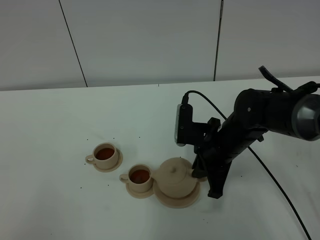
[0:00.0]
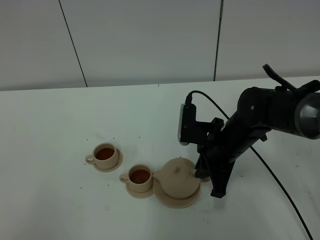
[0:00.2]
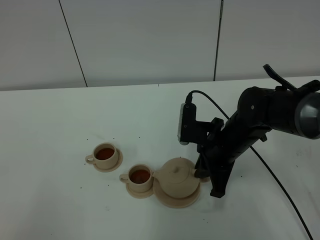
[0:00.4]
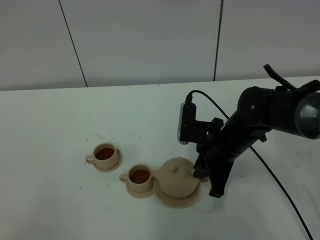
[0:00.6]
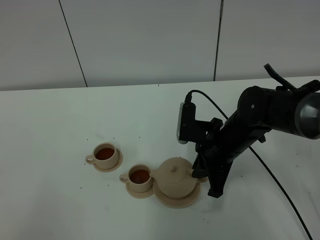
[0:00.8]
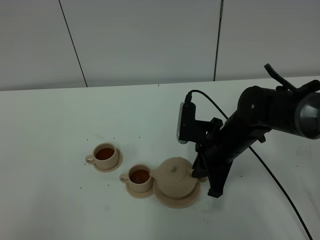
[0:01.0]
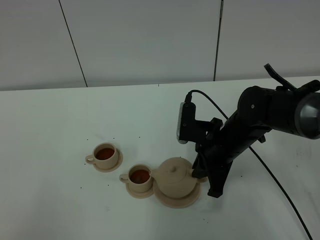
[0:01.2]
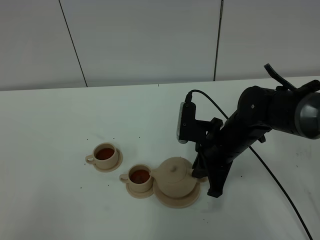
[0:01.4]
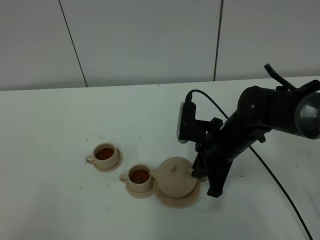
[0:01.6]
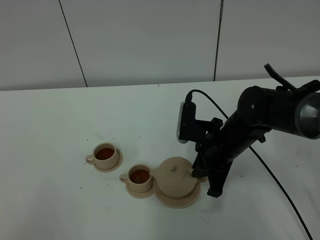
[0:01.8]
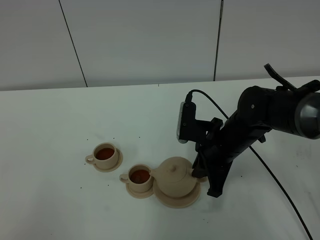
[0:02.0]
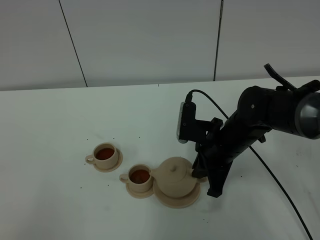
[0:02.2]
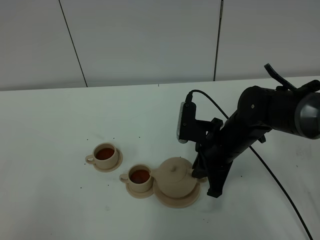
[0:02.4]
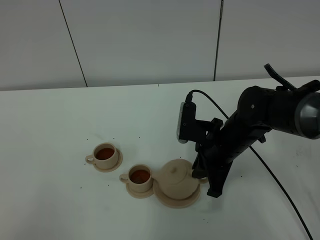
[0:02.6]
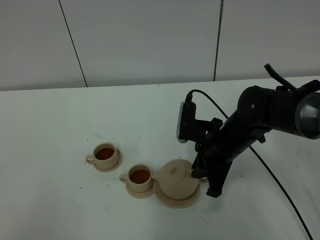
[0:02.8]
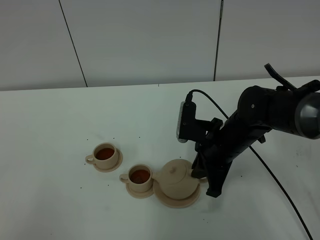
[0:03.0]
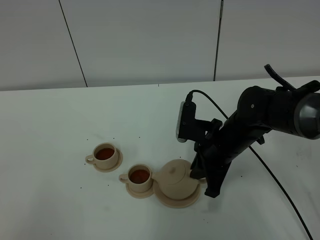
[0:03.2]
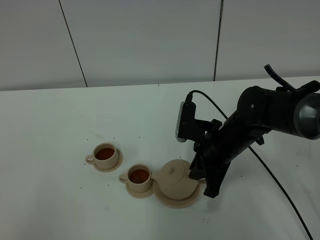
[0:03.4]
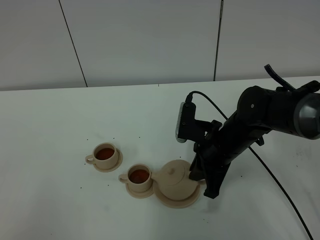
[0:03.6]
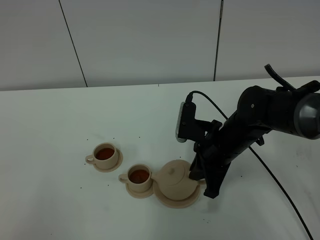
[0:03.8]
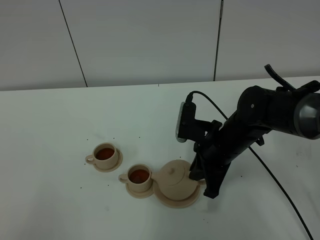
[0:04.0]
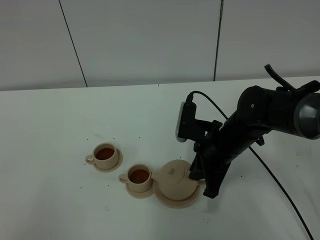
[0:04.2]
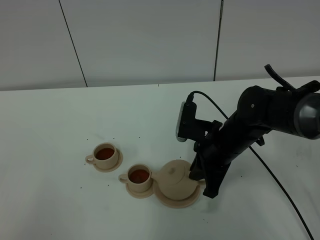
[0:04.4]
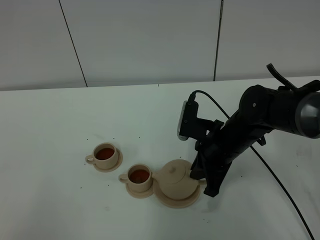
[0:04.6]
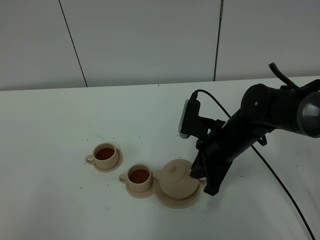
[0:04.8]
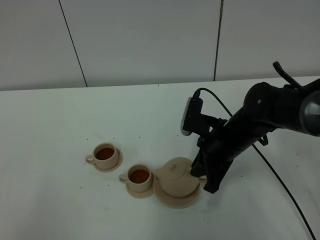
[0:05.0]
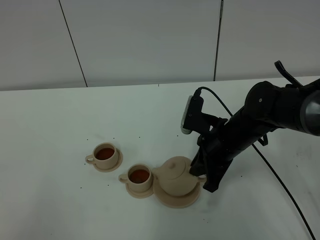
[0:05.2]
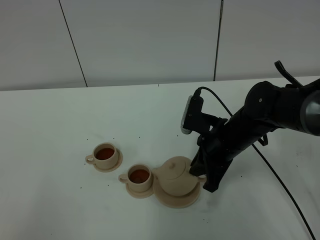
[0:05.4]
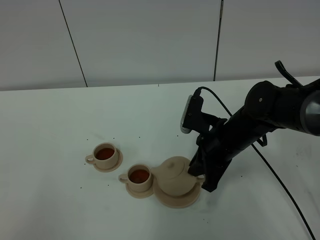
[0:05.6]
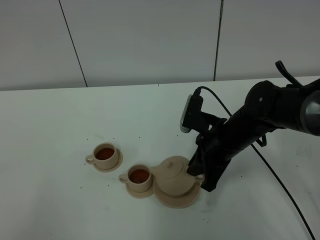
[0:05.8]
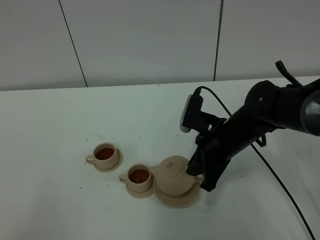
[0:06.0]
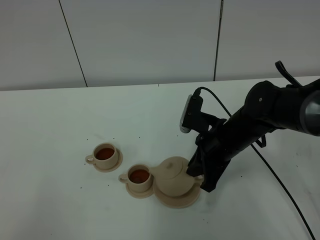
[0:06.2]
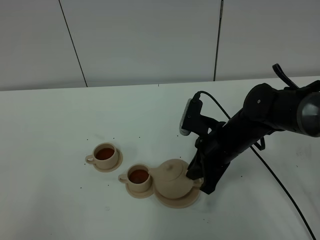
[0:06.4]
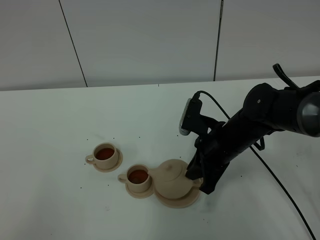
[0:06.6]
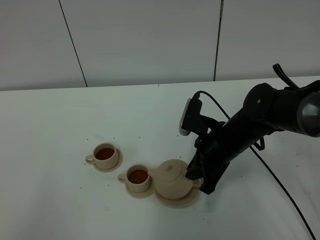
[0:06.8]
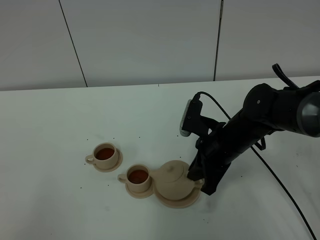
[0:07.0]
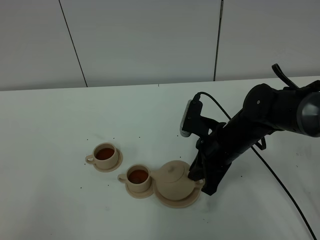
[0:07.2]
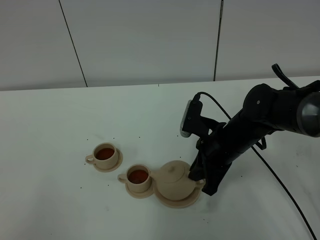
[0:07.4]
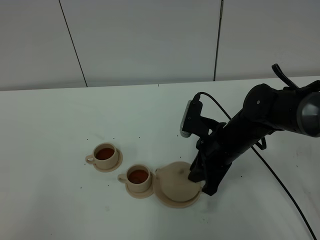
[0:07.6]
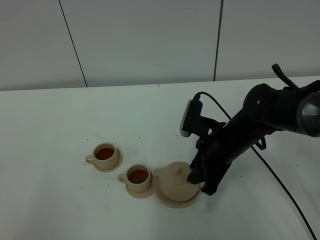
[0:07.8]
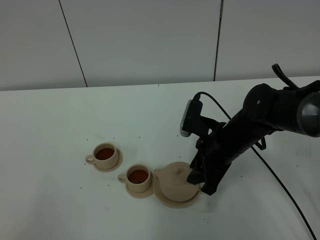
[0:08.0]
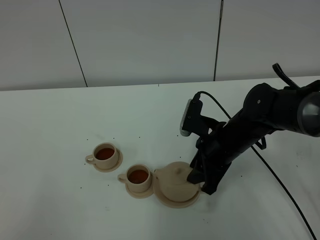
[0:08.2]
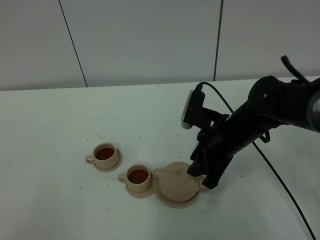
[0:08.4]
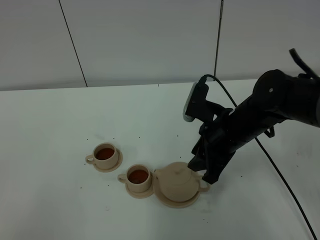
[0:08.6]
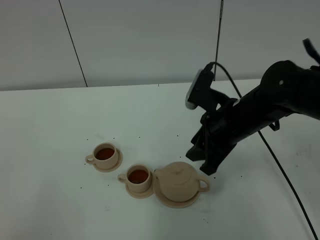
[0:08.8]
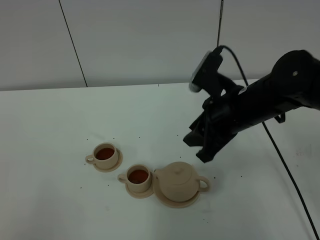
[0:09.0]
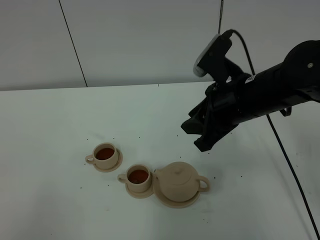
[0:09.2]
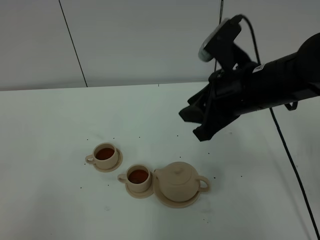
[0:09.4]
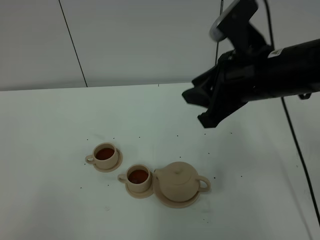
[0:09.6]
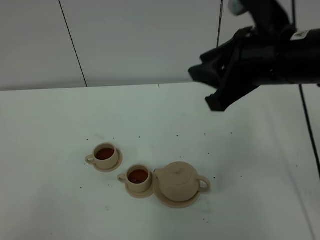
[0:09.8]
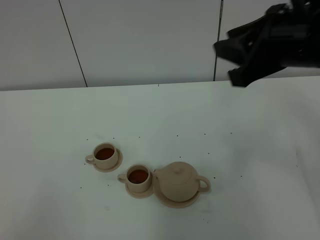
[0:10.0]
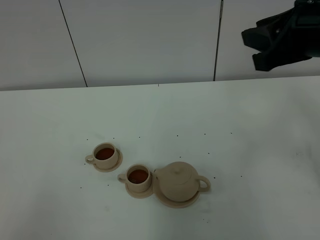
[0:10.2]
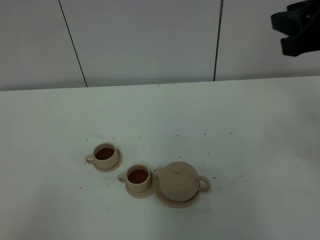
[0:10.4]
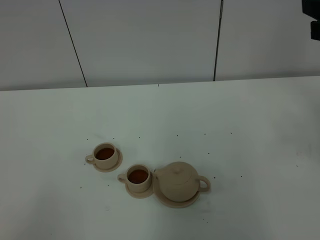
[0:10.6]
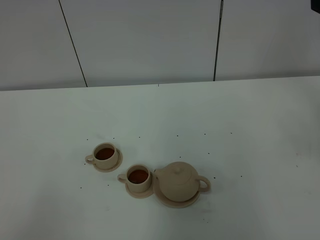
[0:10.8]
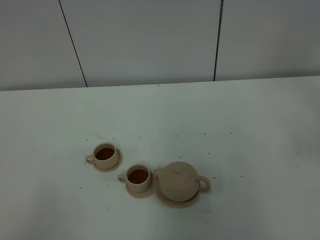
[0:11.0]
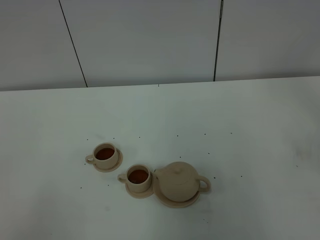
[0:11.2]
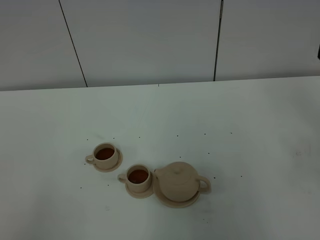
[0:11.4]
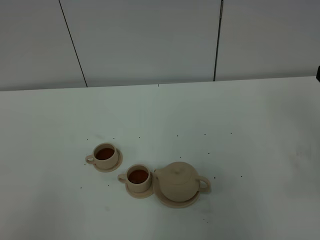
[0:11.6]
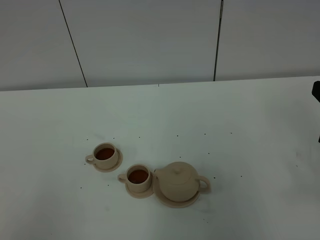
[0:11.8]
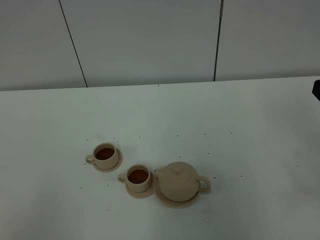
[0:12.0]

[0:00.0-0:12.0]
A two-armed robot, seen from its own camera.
Task of the whole recording: grasp the brown teapot and pour the tea into the two brown teacups one by one, put the brown teapot back in its original place.
0:00.0 to 0:03.0: Both grippers stay put.
0:03.0 to 0:04.4: The two grippers keep their place.
0:04.4 to 0:06.0: The grippers stay close to where they were, moving slightly.
0:06.0 to 0:07.6: The right gripper opens its fingers.
0:07.6 to 0:09.0: The right gripper shifts roughly 10 cm upward.
0:09.0 to 0:10.4: The right gripper heads upward and to the right, covering about 20 cm.
0:10.4 to 0:12.0: The right gripper moves downward and backward, approximately 15 cm.

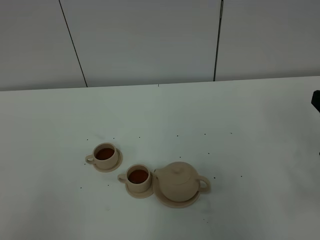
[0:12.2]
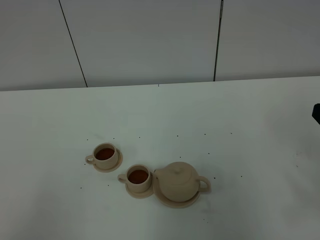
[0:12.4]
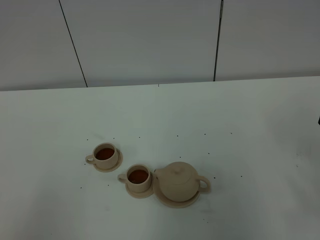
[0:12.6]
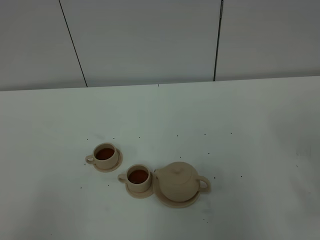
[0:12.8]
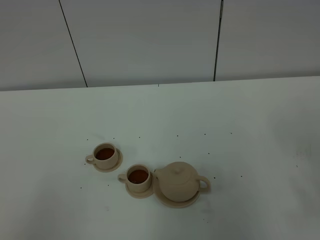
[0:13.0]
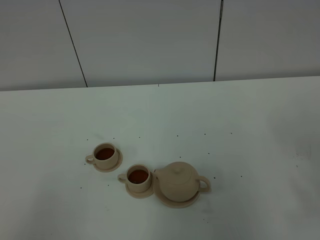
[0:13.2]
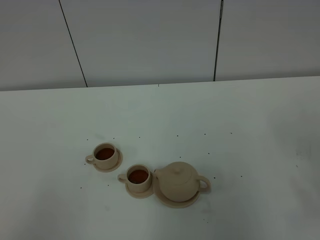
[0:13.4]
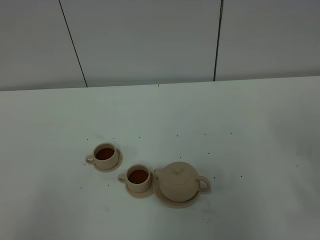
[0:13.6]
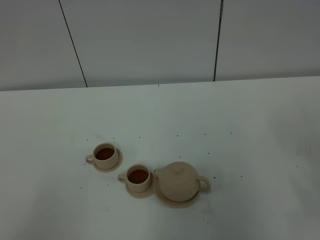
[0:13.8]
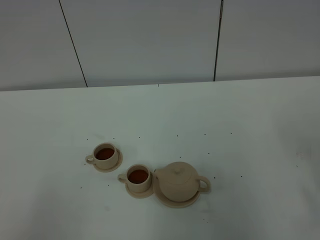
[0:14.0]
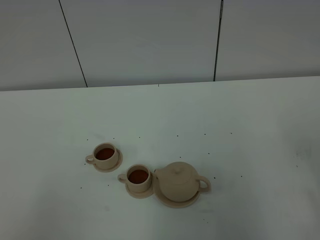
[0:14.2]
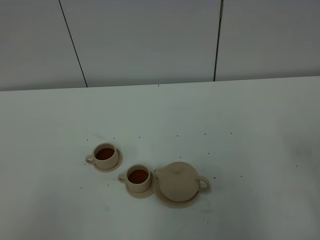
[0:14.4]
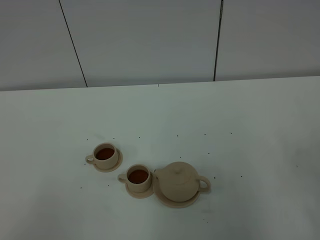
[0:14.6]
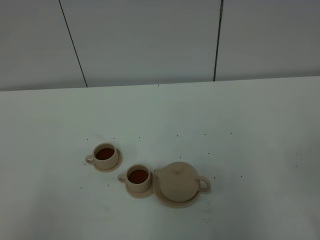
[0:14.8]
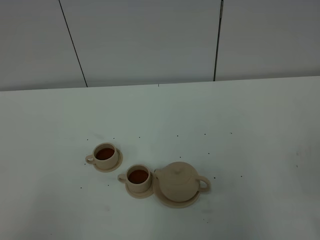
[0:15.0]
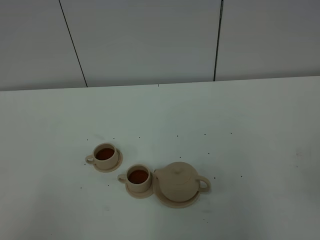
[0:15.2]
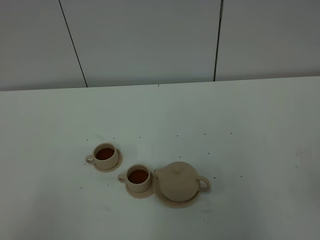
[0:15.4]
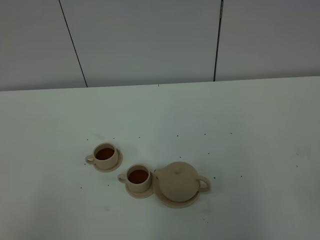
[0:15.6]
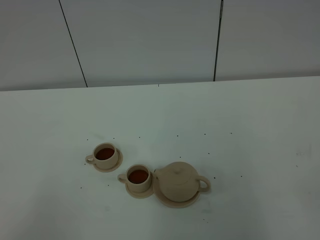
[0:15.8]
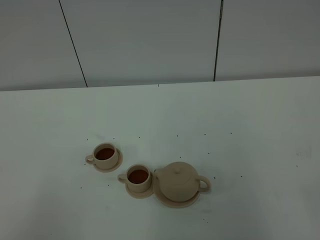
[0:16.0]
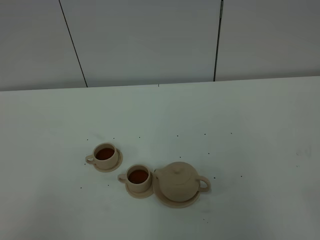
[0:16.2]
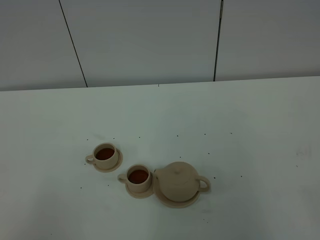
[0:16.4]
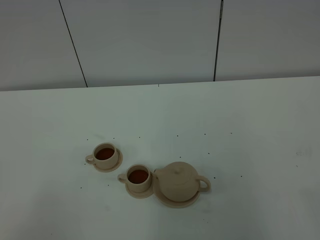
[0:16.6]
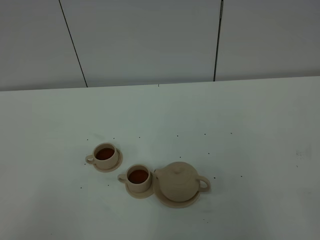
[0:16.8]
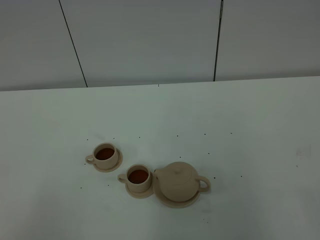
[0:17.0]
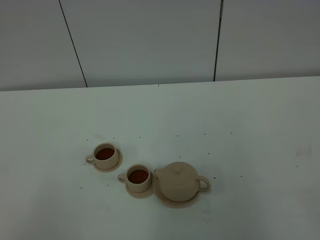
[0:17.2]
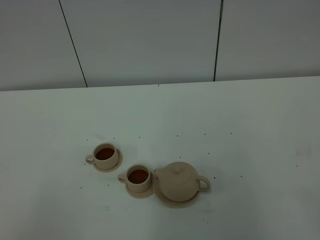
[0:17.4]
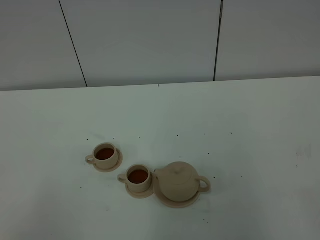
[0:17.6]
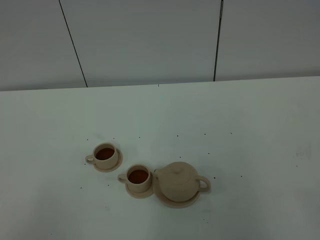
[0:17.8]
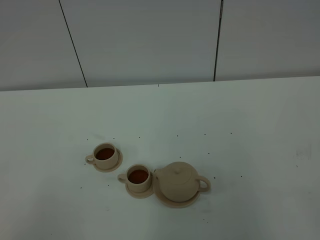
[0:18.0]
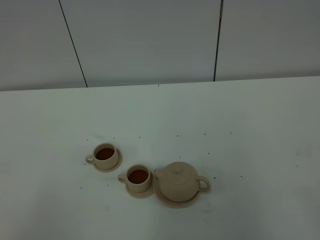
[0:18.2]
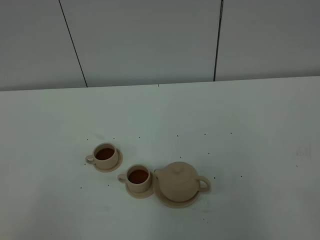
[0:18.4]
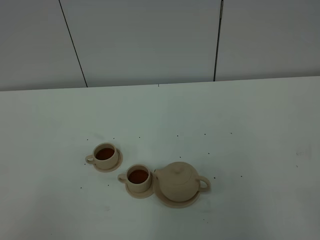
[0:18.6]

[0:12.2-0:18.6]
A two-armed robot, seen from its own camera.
Task of the whole recording: grasp the brown teapot and pour the tea into the two brown teacups one by one, put the brown teapot back in its original place.
0:17.0 to 0:18.6: The two grippers keep their place.

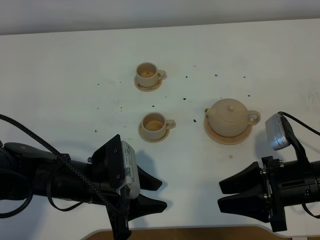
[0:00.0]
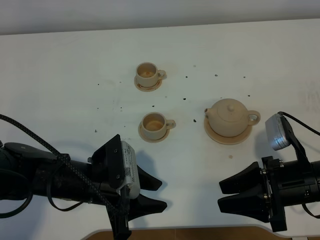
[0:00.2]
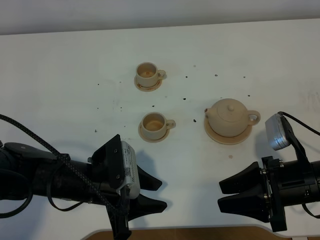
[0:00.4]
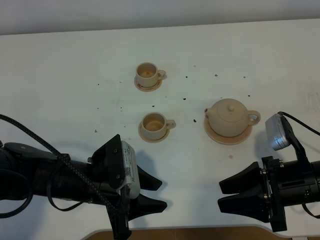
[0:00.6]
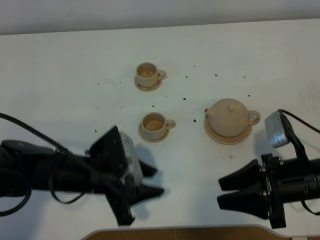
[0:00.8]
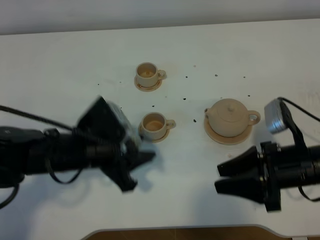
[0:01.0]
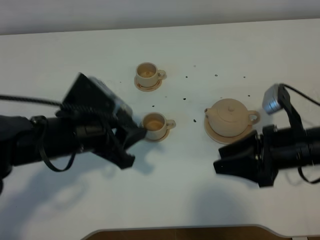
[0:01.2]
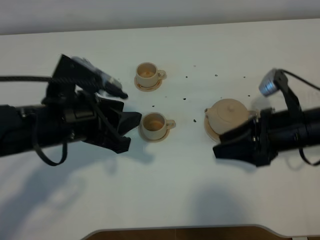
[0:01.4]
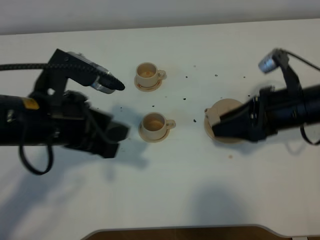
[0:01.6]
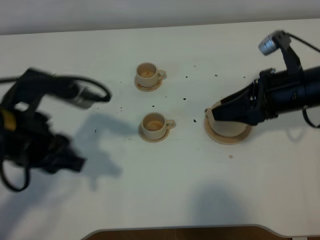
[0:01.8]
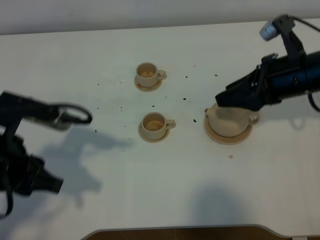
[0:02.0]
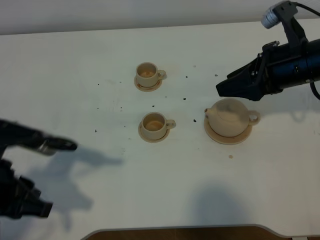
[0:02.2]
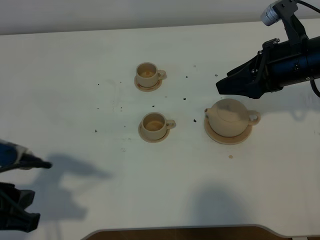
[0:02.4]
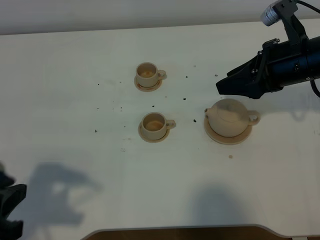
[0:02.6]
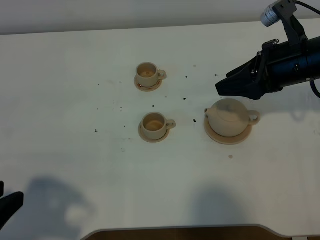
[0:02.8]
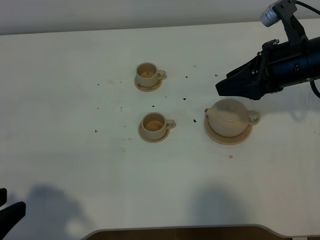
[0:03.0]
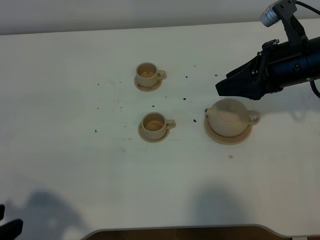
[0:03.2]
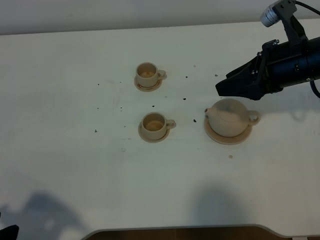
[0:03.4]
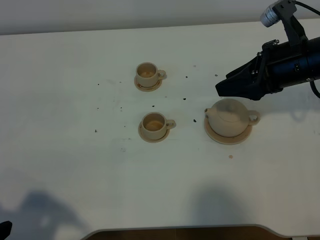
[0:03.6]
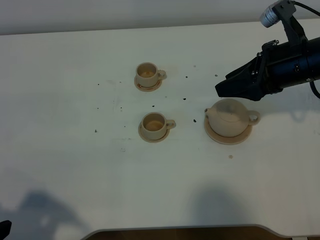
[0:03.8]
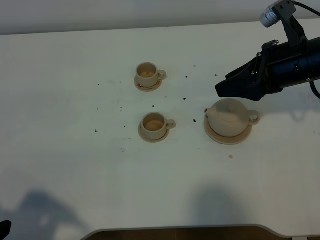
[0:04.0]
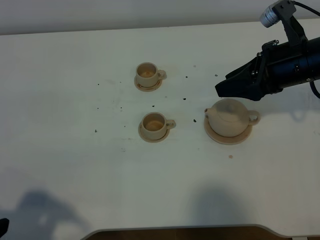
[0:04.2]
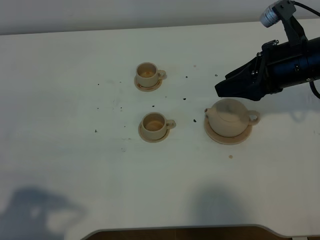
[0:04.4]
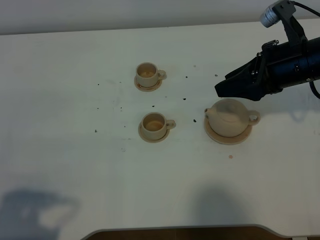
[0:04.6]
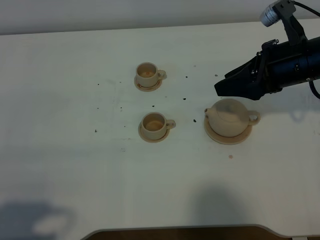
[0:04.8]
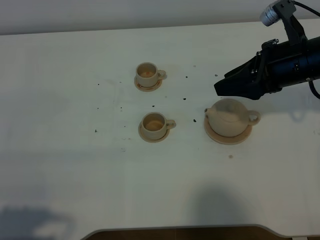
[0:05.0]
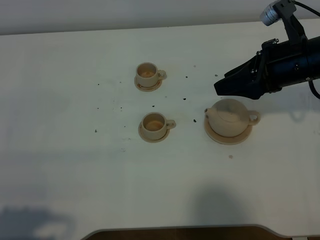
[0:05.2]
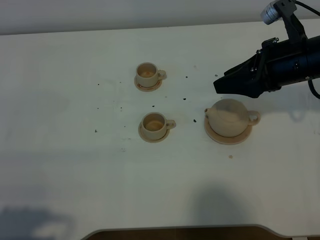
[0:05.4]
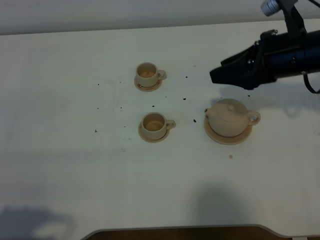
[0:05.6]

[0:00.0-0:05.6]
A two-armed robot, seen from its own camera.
Task of the whole recording: grasp the brown teapot and pour the tea into the two brown teacups one by one, put the brown teapot back in its original place.
0:00.0 to 0:01.4: The left gripper goes roughly 10 cm upward; the right gripper heads forward, covering approximately 10 cm.
0:01.4 to 0:02.8: The right gripper travels upward and forward by approximately 10 cm. The left gripper is displaced backward and to the left by roughly 20 cm, and closes up.
0:02.8 to 0:04.2: The grippers make only small movements.
